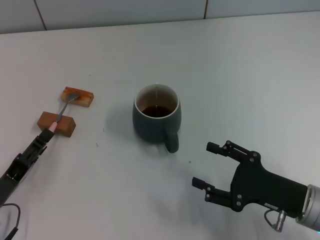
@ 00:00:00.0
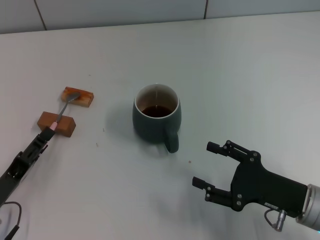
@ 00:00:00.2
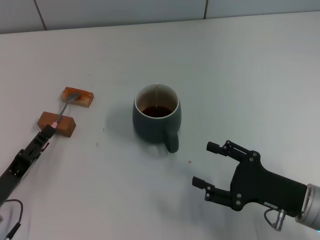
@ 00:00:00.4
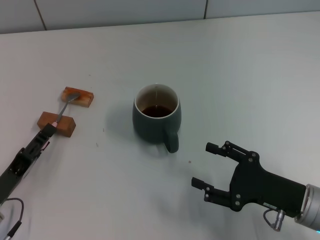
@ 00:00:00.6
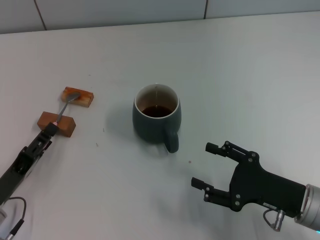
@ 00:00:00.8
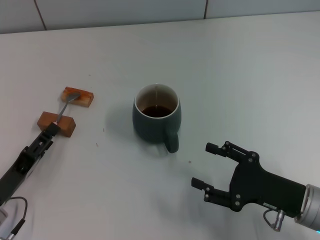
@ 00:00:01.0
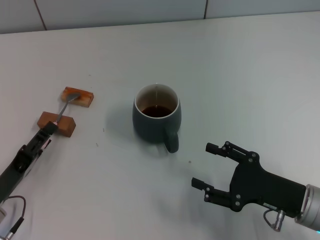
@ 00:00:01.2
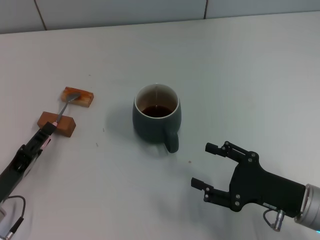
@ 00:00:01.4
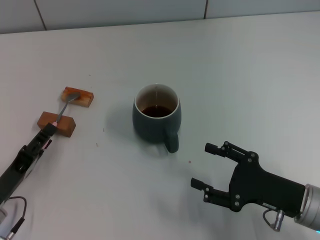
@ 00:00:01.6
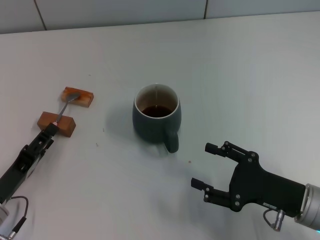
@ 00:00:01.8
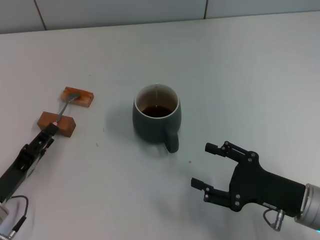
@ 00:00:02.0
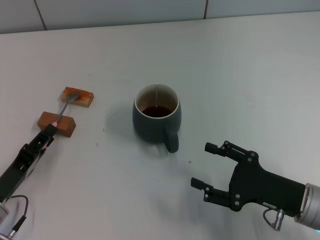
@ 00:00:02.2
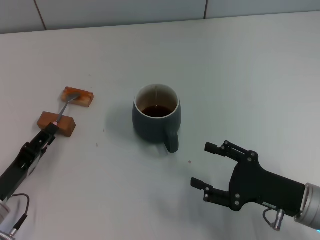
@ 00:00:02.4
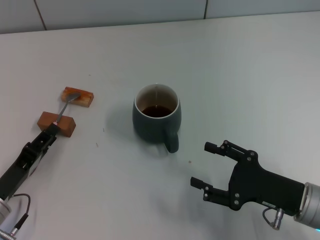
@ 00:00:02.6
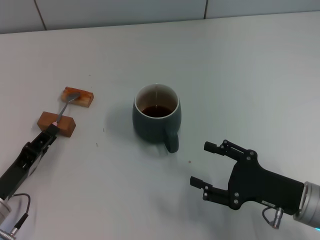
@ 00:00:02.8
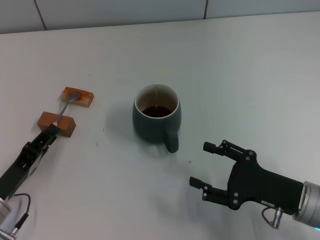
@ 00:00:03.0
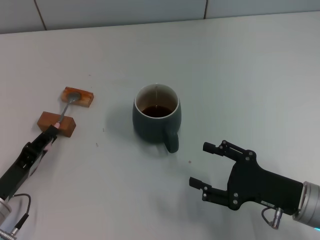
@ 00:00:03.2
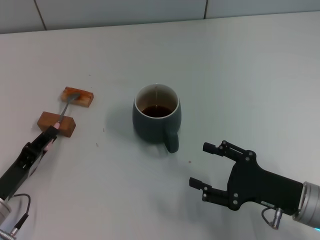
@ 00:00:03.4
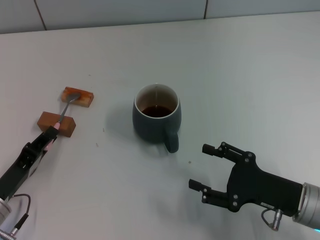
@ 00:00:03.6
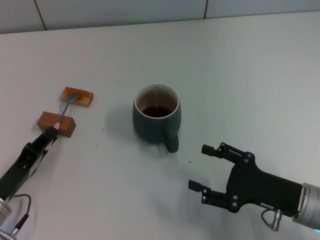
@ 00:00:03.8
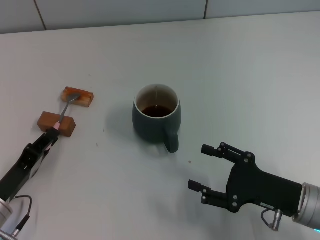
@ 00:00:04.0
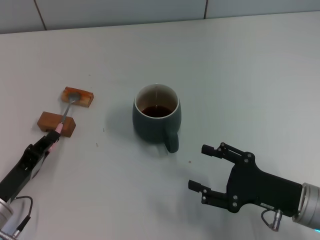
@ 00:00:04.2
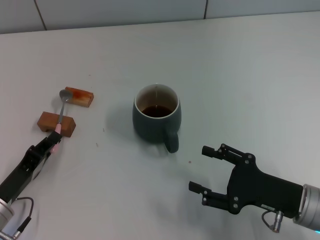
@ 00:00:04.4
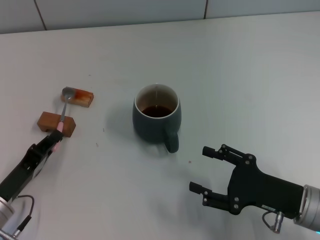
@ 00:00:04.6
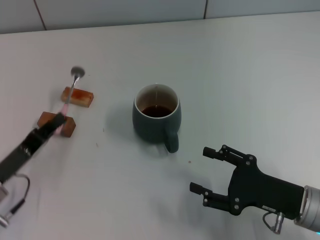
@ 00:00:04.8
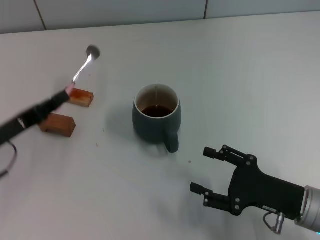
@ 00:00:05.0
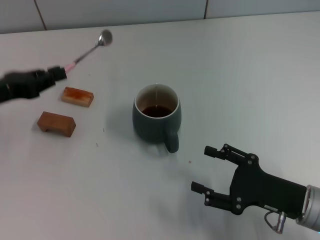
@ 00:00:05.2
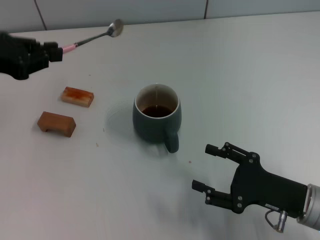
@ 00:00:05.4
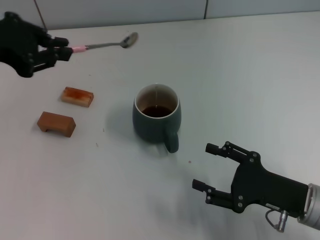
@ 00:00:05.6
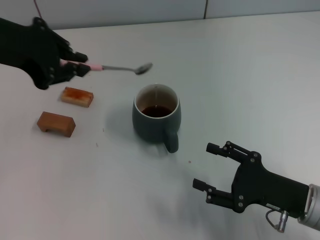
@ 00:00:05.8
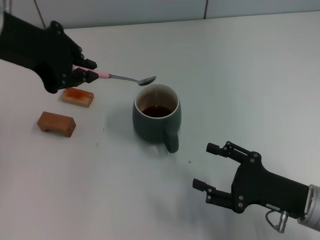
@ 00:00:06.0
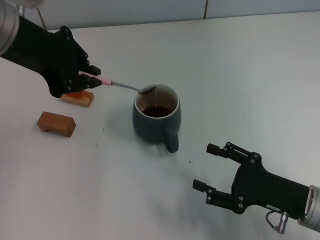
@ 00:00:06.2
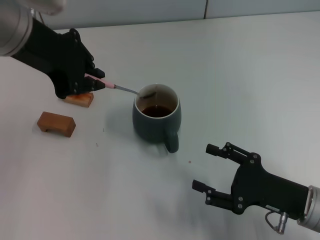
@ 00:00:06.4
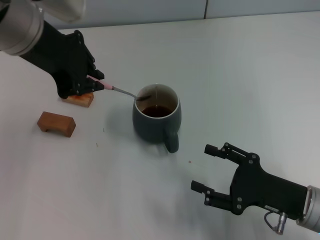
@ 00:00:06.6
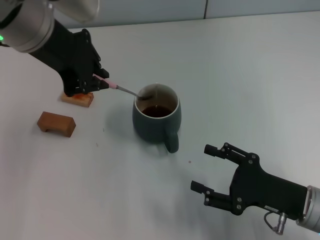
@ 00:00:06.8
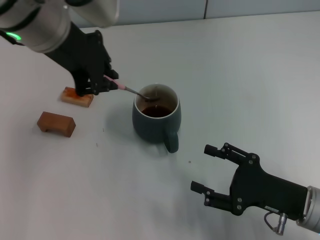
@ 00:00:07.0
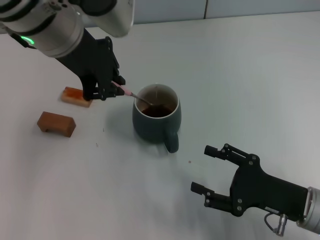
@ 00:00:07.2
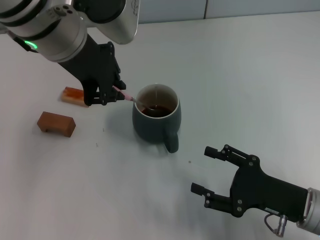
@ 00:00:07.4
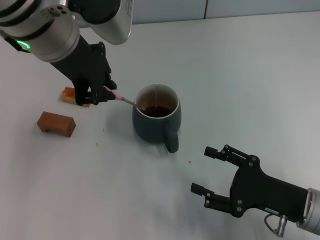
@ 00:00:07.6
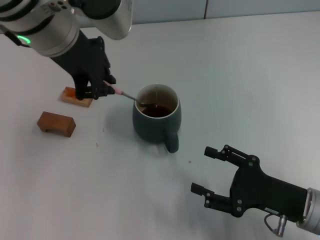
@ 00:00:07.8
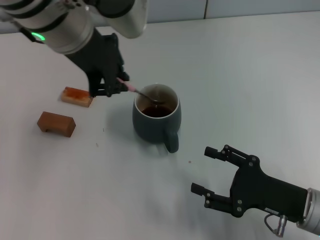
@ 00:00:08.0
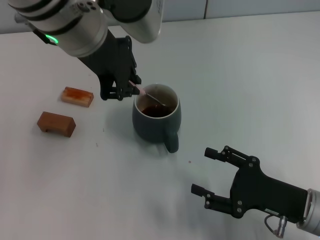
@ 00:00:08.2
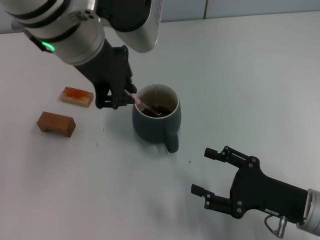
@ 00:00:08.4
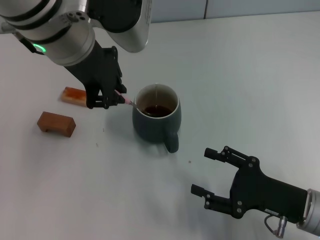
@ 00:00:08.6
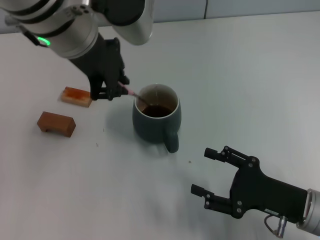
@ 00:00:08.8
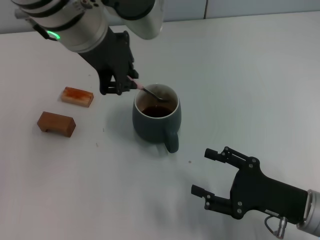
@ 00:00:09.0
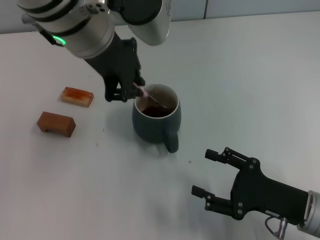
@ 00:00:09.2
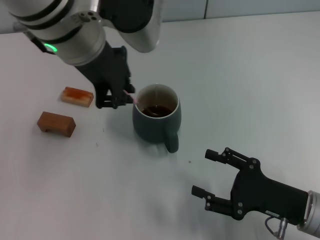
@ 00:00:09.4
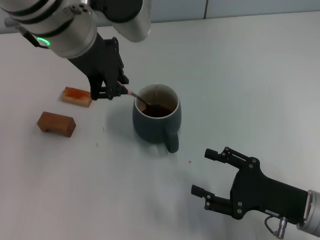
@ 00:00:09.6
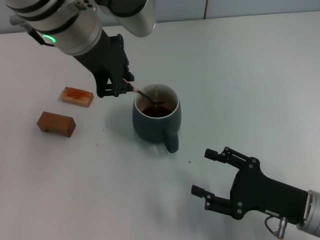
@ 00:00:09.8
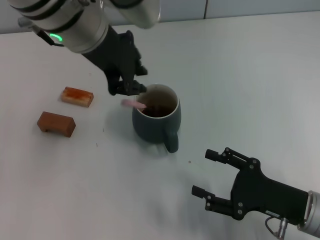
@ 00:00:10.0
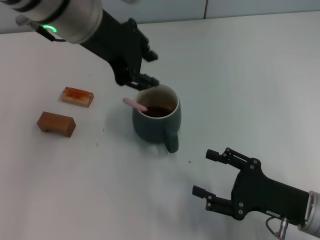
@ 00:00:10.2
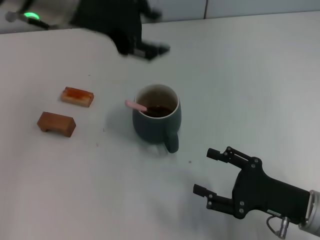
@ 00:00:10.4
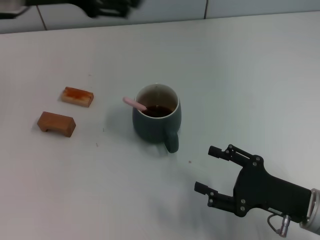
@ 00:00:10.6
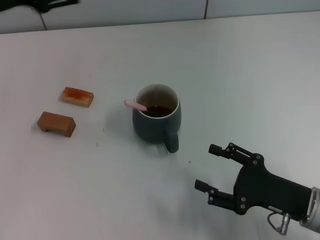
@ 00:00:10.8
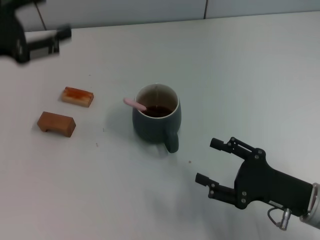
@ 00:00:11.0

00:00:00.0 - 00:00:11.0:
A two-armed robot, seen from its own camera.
Task of the whole recording: Move the grey cup to the center, lift the pink spoon, stir it three times in the cup, and put the spoon into the cup.
Step, 00:00:00.0 - 00:00:04.4: Pick up the spoon with the left gripper.
Step, 00:00:04.8 - 00:00:10.0: Stir the coffee in the cup with the left gripper.
00:00:00.0 - 00:00:01.6: The grippers stay close to where they were, moving slightly.
00:00:01.6 - 00:00:03.2: The left gripper closes.
00:00:03.2 - 00:00:04.8: The grippers make only small movements.
00:00:04.8 - 00:00:06.2: The left gripper travels upward and forward by about 30 cm.
00:00:06.2 - 00:00:07.8: The left gripper shifts roughly 5 cm to the right.
00:00:07.8 - 00:00:09.4: The grippers stay close to where they were, moving slightly.
00:00:09.4 - 00:00:11.0: The left gripper moves to the left, some 20 cm, and opens.

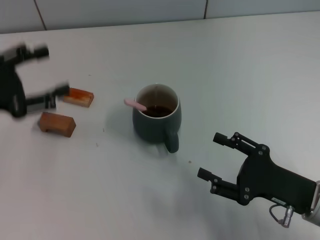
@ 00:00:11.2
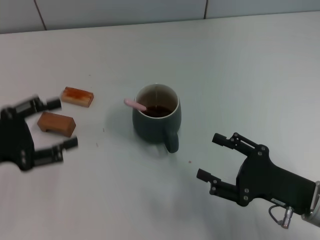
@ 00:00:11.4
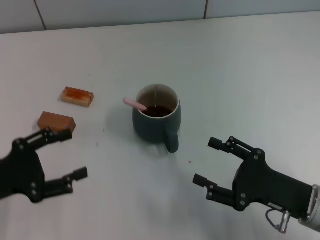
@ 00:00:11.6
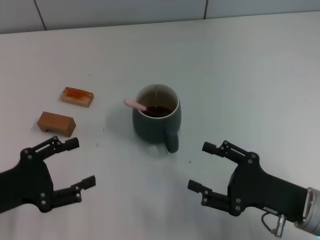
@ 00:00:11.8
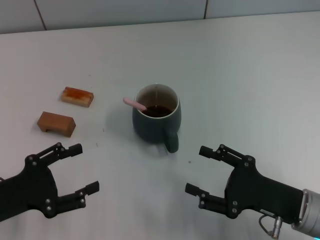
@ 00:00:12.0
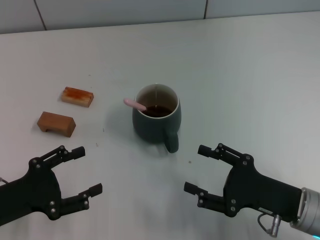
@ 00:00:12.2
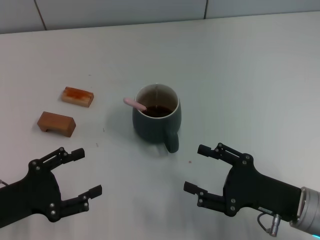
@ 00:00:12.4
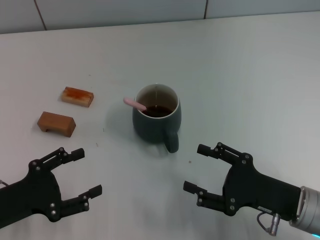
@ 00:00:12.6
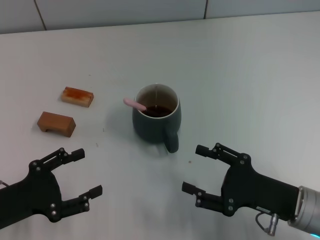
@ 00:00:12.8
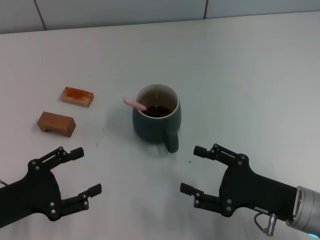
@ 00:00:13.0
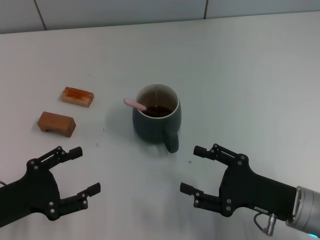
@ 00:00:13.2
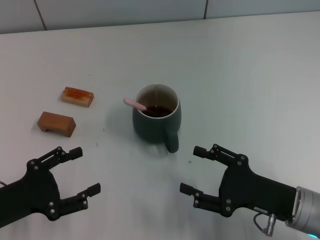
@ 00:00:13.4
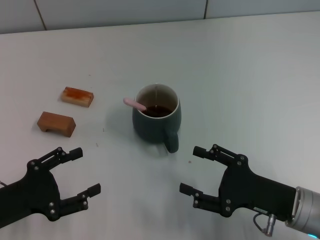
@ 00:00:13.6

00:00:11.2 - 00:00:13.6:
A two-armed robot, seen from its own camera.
Task of the whole recording: Move the grey cup to the center, lift the pink spoon, stir it three times in the cup, and put the spoon into the cup.
00:00:11.2 - 00:00:12.4: The left gripper moves downward and backward, approximately 15 cm.
00:00:12.4 - 00:00:13.6: The two grippers keep their place.
